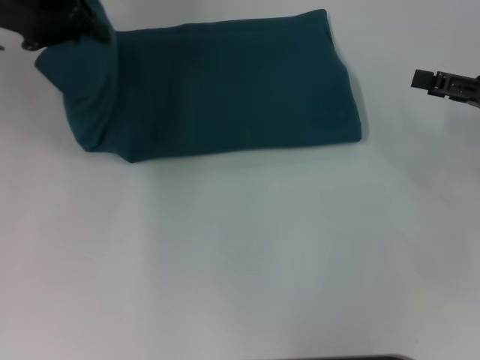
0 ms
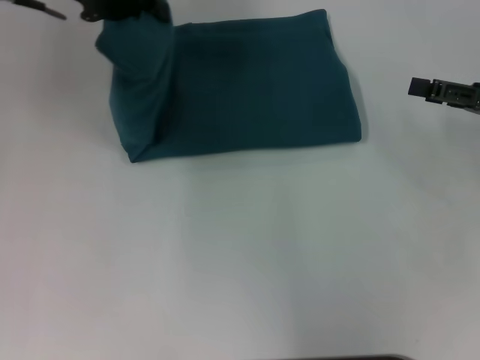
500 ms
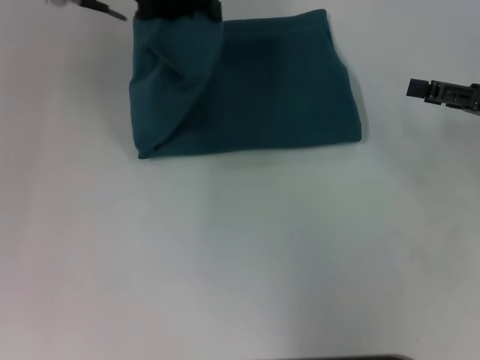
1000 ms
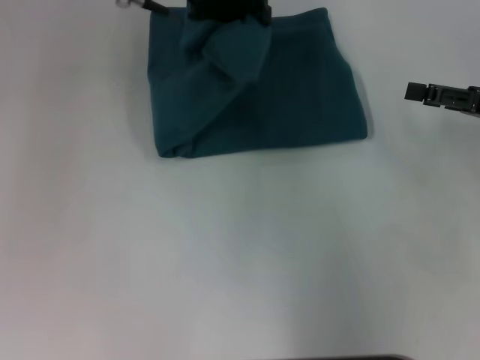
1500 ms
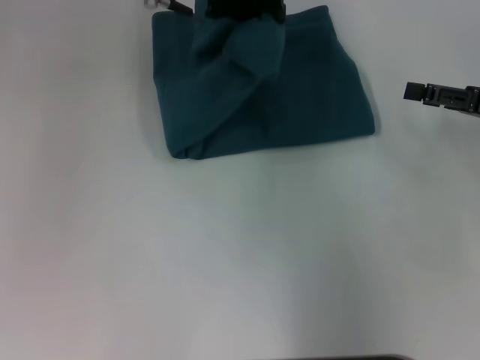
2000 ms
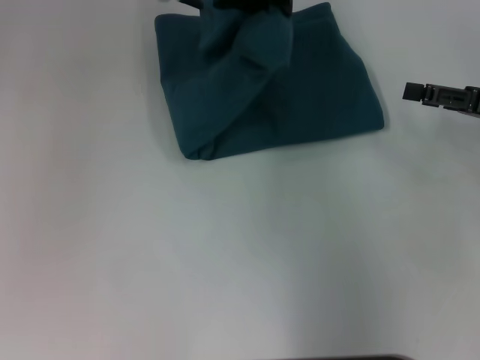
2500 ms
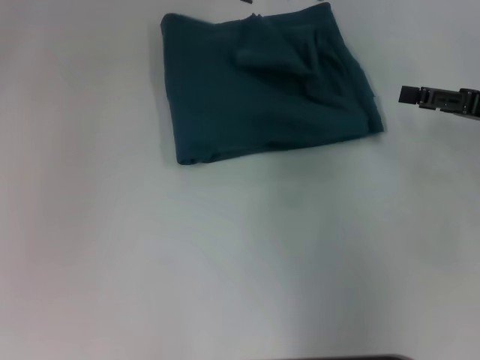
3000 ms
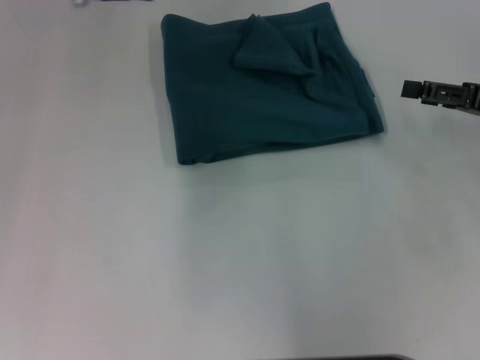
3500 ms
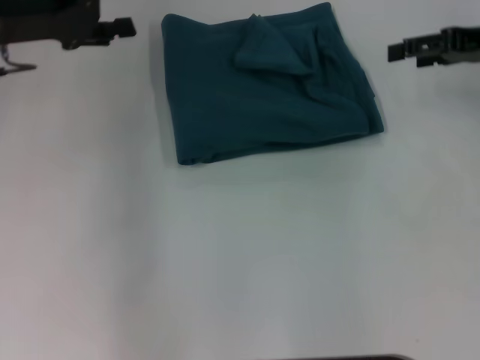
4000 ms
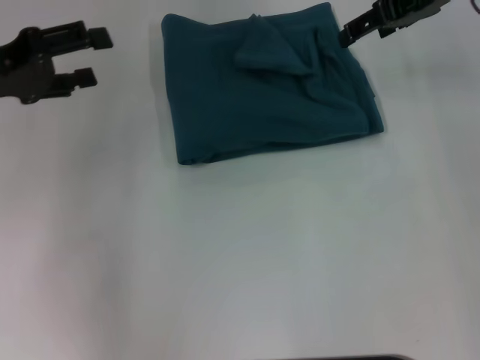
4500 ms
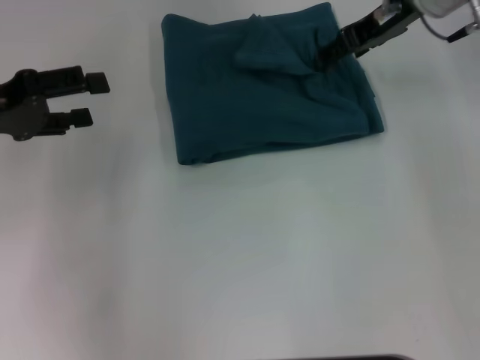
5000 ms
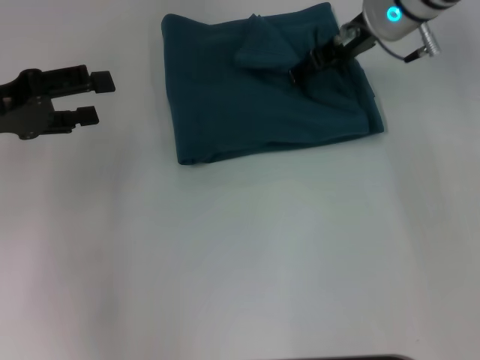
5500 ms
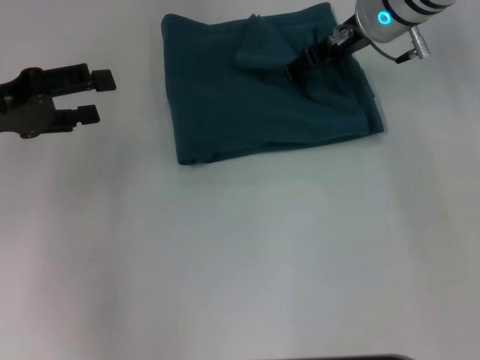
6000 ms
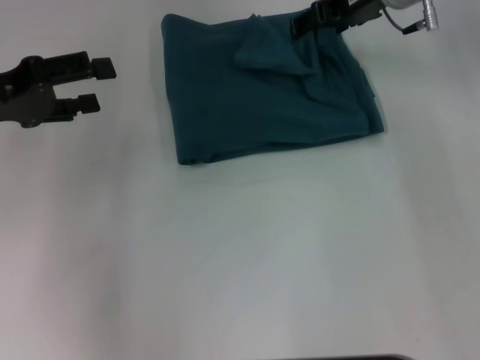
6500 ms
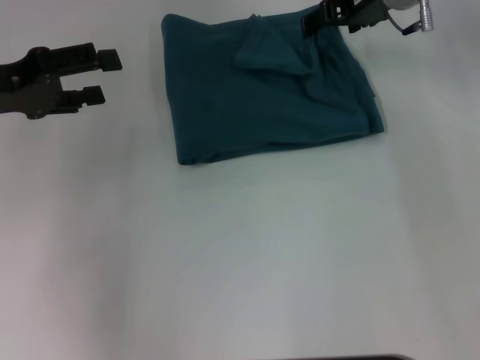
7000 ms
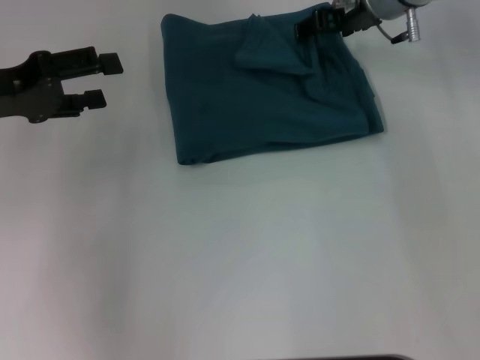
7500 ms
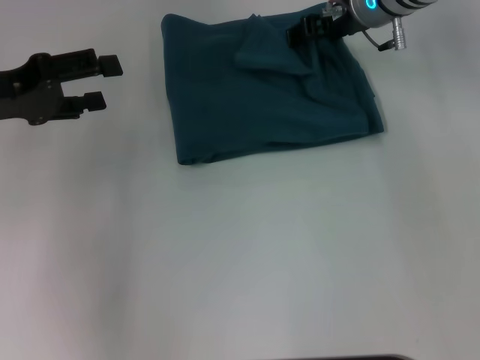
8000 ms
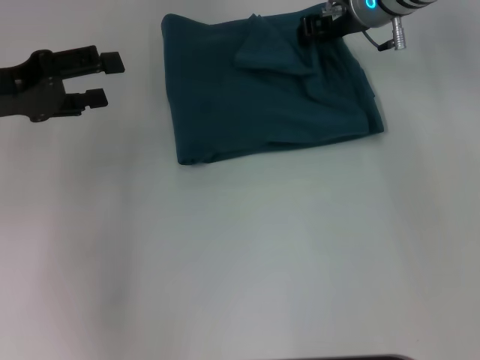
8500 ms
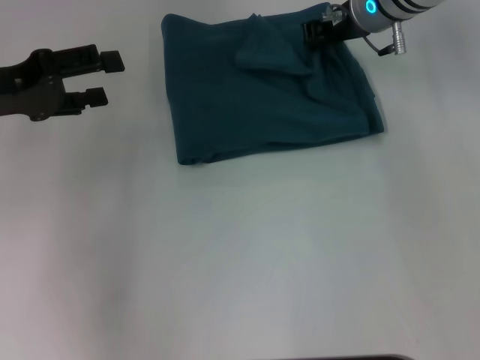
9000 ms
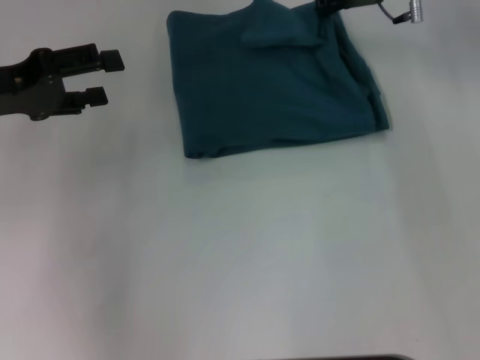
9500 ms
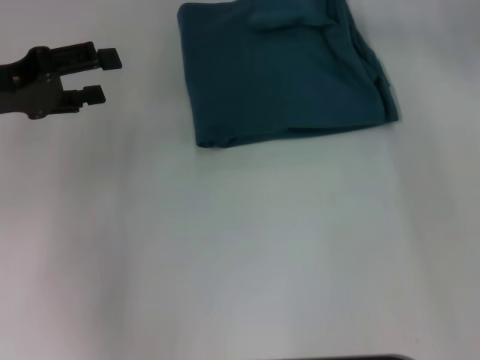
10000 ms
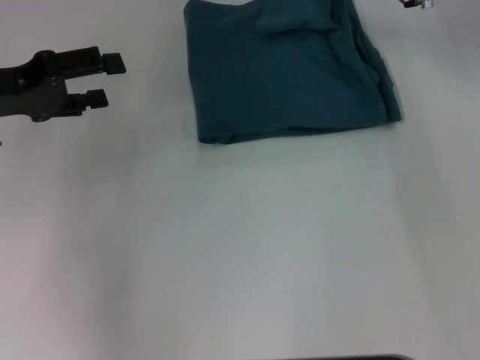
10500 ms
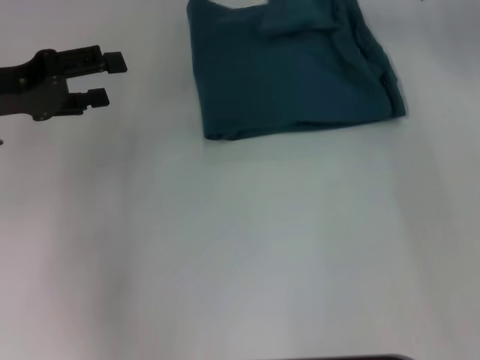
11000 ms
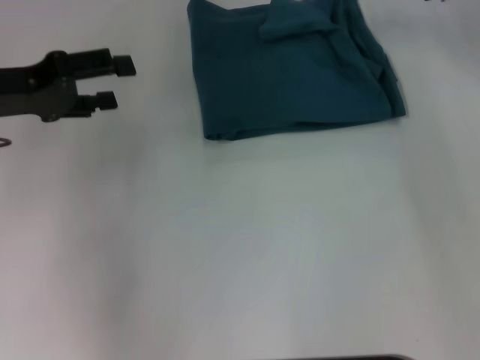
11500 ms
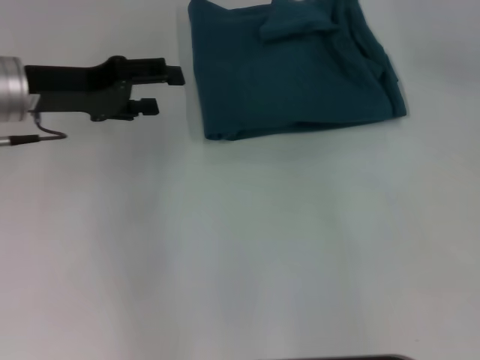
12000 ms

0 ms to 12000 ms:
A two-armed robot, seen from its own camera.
Step, 0 ms to 2500 ms: Fold the clothes to the left.
0 ms to 2000 ms: The left gripper is displaced to the right by roughly 20 cm.
2000 ms to 4000 ms: The left gripper travels to the left by approximately 20 cm, and opens its fingers; the right gripper heads forward and upward, covering roughly 10 cm.
4000 ms to 6000 ms: The right gripper is displaced to the left by approximately 15 cm. Meanwhile the left gripper is displaced backward by roughly 5 cm.
6000 ms to 8000 ms: The grippers move only a little.
8000 ms to 10000 ms: The right gripper moves roughly 5 cm, and closes its fingers.
10000 ms to 12000 ms: The right gripper moves to the right and backward, about 10 cm, and opens its fingers; the left gripper heads to the right, covering roughly 5 cm.

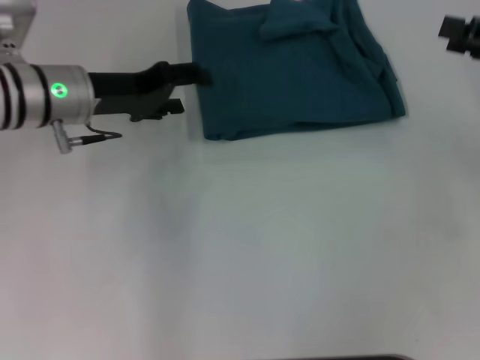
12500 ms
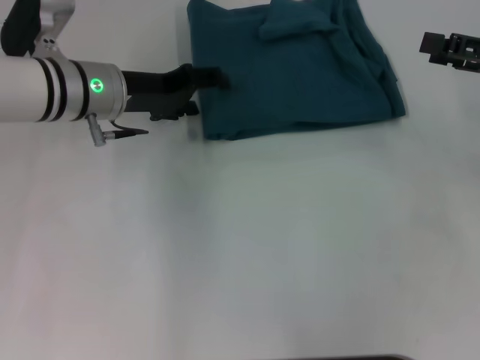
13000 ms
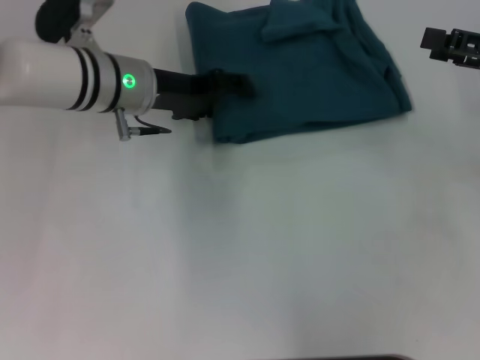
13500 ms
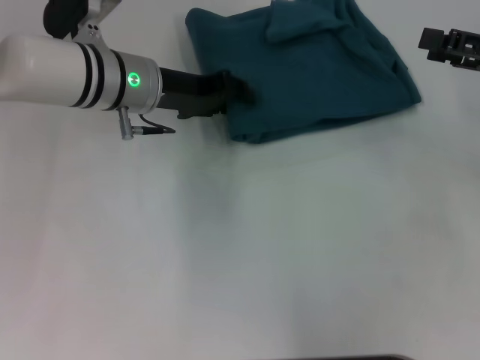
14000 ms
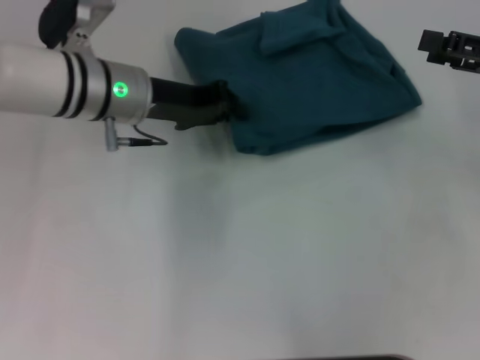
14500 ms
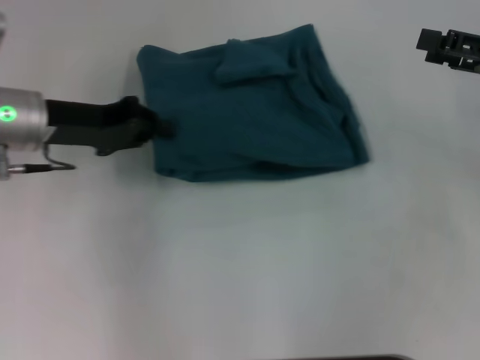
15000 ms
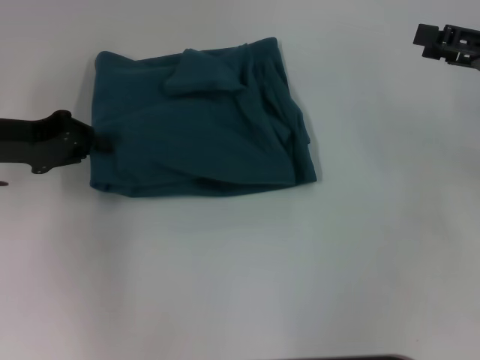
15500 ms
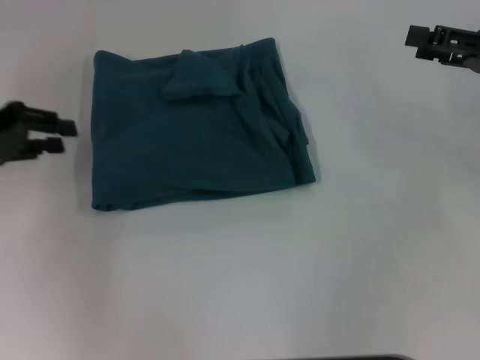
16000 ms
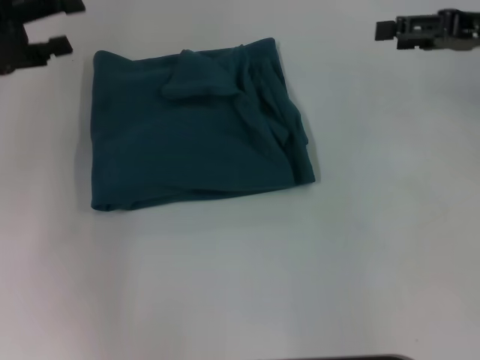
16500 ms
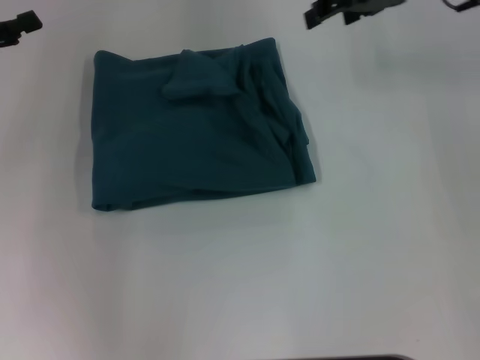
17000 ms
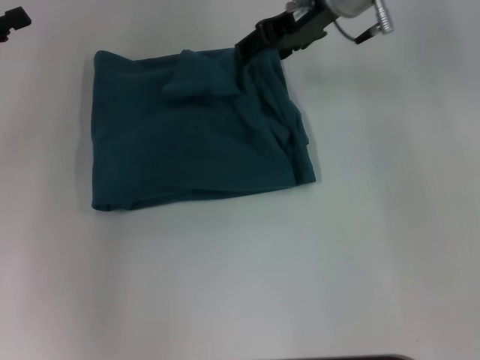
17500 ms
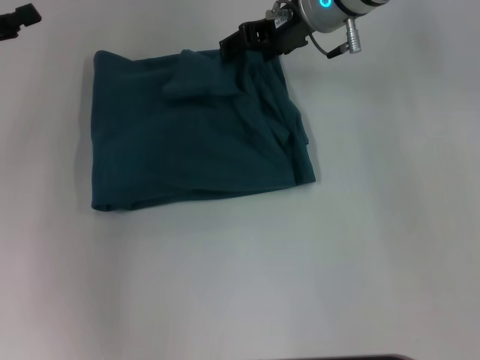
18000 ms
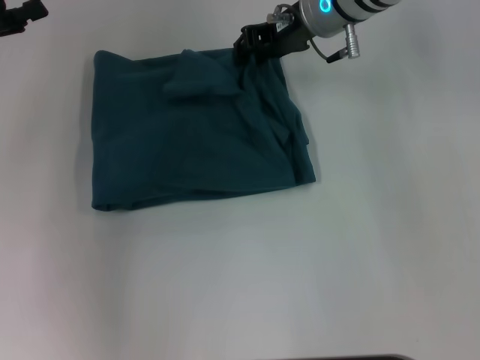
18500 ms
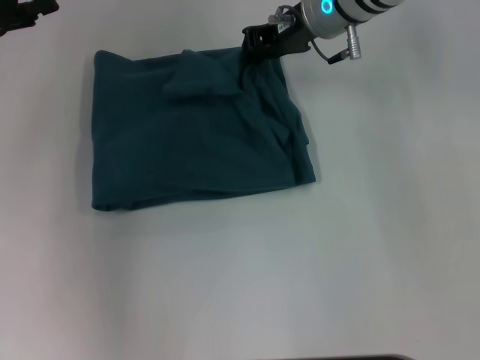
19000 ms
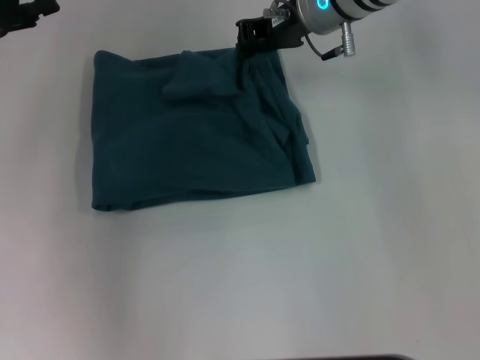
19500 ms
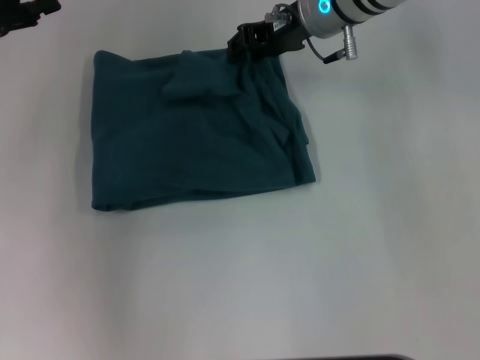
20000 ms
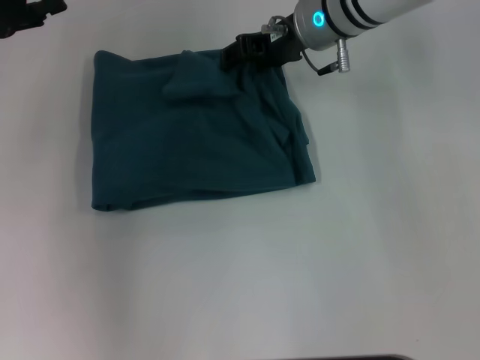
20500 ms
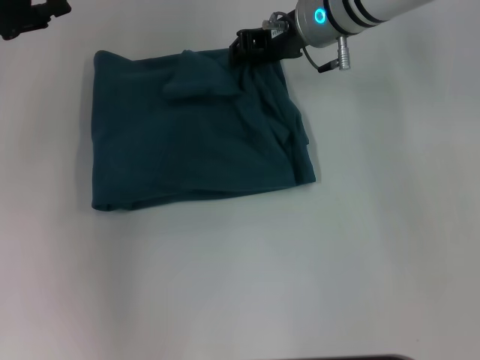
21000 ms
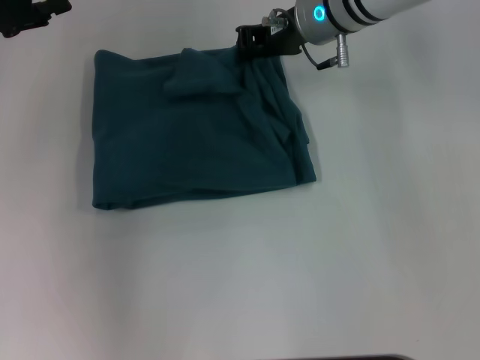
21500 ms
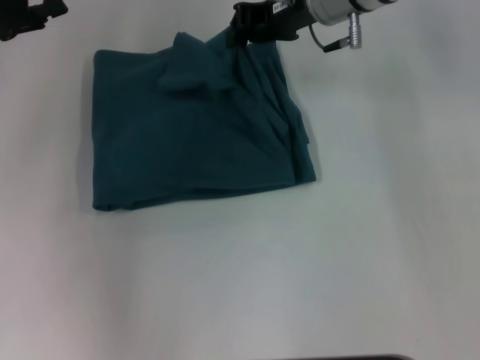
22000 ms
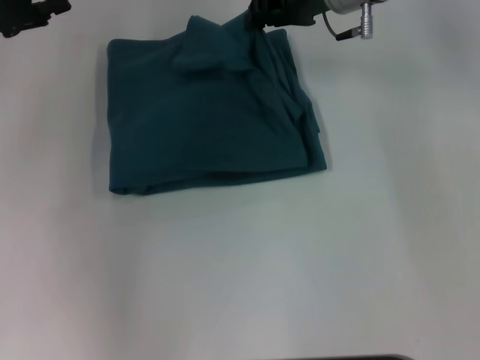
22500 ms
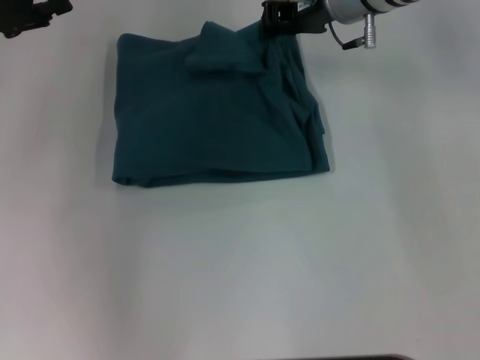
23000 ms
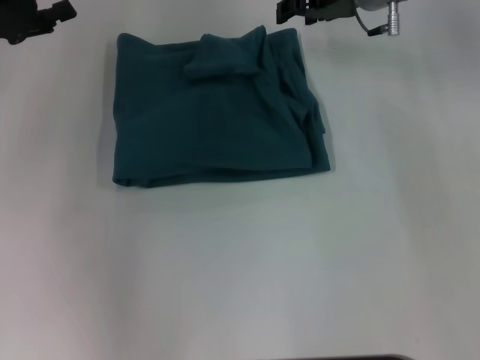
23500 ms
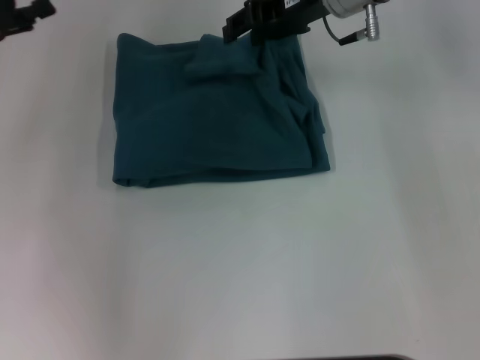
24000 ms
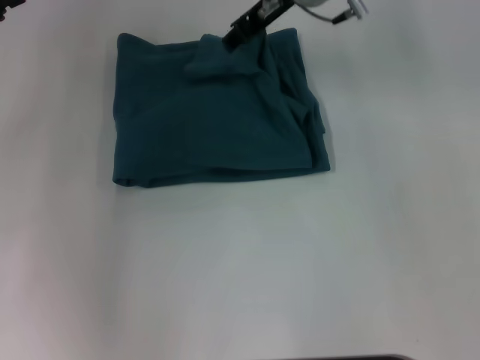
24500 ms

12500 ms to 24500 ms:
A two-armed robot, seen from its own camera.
12500 ms to 14500 ms: The left gripper goes about 5 cm to the right, and closes up.
14500 ms to 16500 ms: The right gripper travels forward by about 5 cm. Meanwhile the left gripper travels to the left by roughly 15 cm, and opens.
16500 ms to 18500 ms: The right gripper shifts roughly 20 cm to the left.
18500 ms to 20500 ms: The right gripper closes, then reopens.
20500 ms to 22500 ms: The right gripper closes up.
22500 ms to 24500 ms: The right gripper moves approximately 5 cm, and opens up.

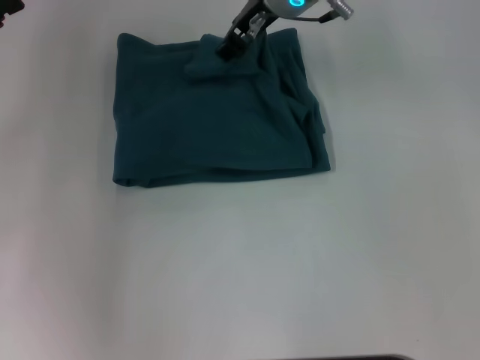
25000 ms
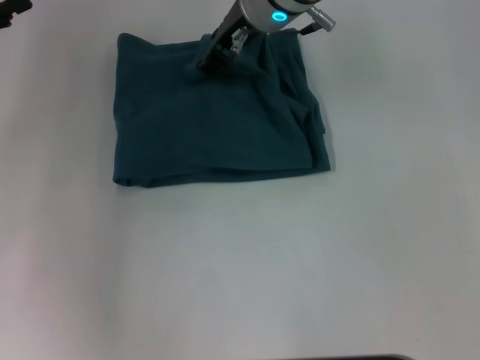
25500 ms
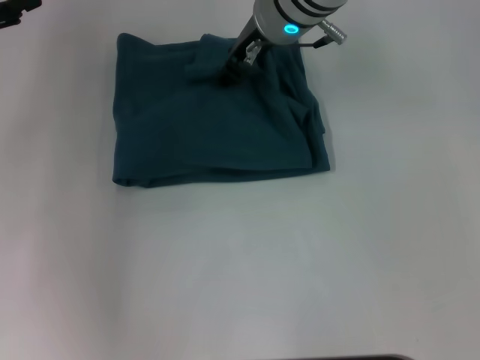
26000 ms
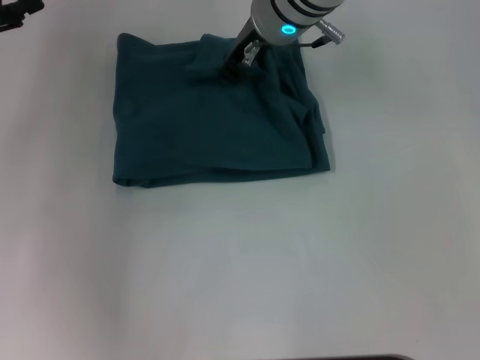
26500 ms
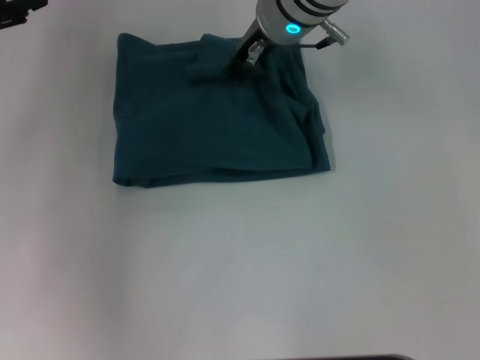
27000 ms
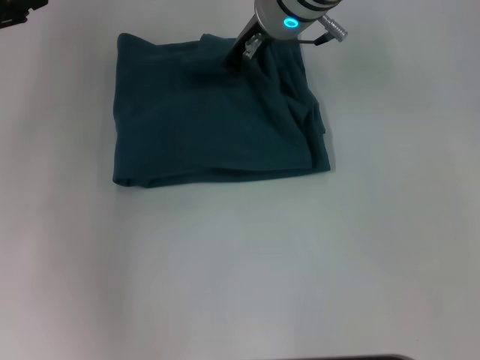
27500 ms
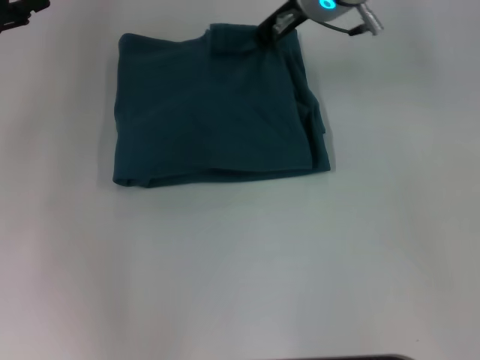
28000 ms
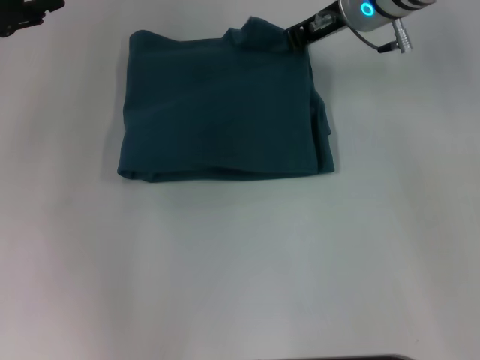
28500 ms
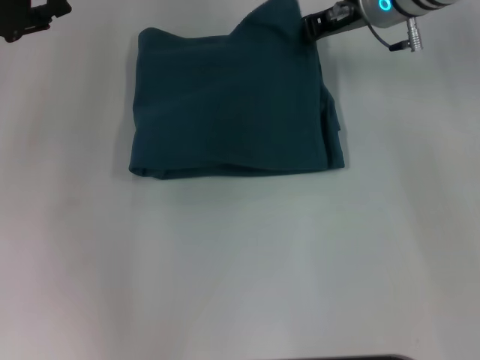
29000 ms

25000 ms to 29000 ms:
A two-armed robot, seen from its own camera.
25000 ms to 27000 ms: The right gripper closes its fingers.
27000 ms to 29000 ms: The right gripper goes some 10 cm to the right.
